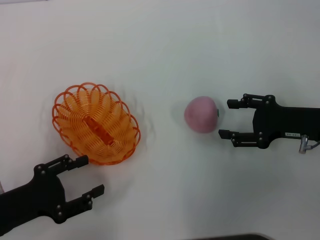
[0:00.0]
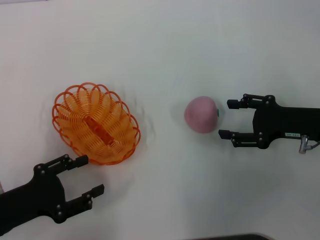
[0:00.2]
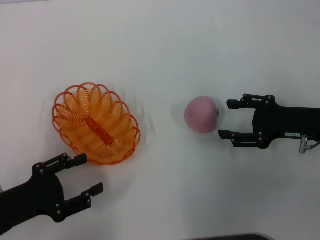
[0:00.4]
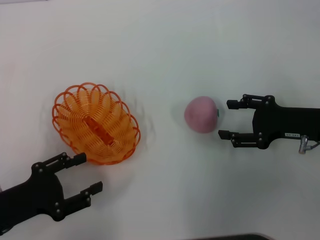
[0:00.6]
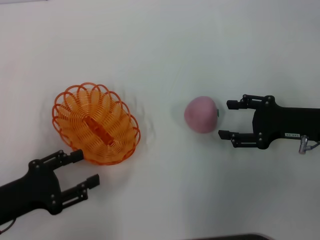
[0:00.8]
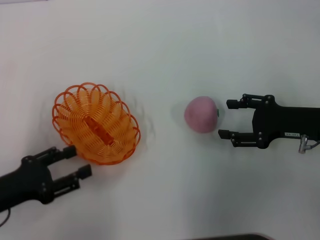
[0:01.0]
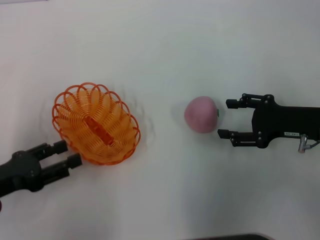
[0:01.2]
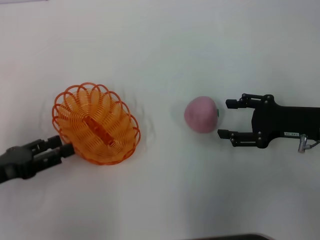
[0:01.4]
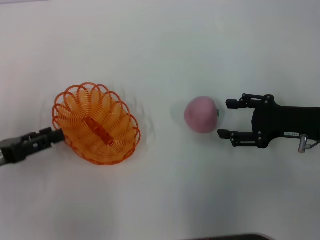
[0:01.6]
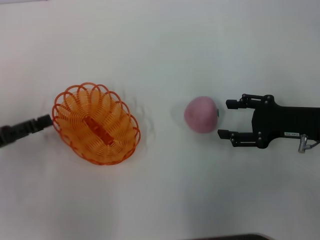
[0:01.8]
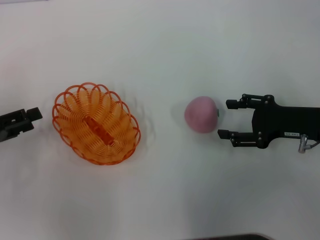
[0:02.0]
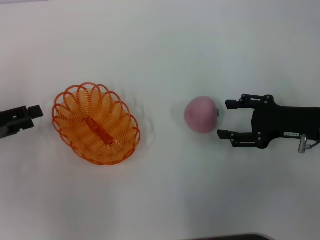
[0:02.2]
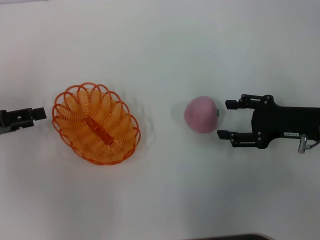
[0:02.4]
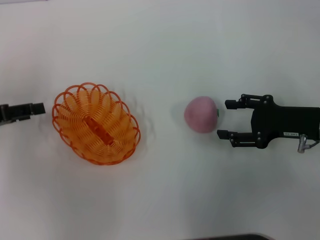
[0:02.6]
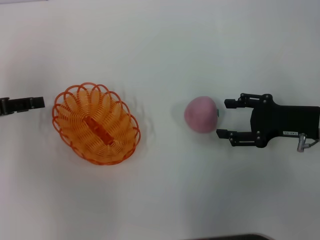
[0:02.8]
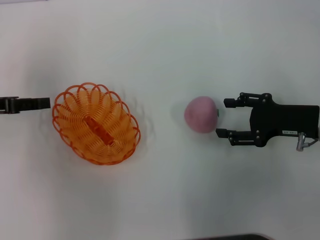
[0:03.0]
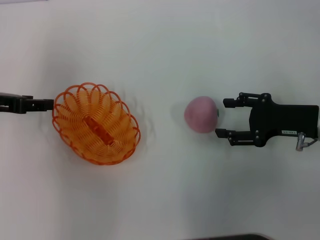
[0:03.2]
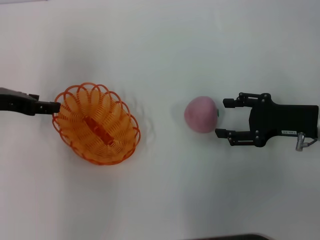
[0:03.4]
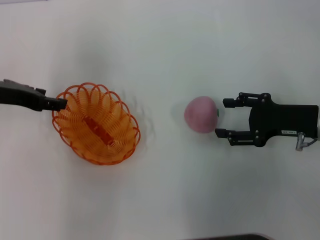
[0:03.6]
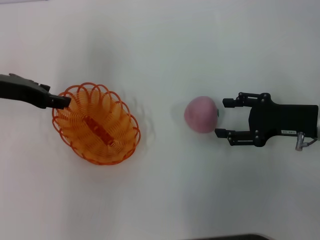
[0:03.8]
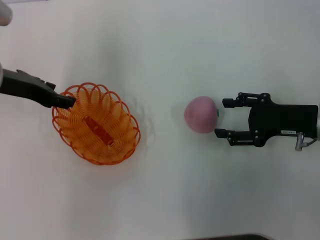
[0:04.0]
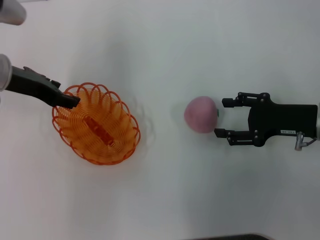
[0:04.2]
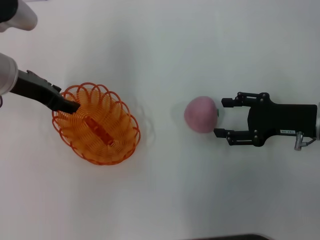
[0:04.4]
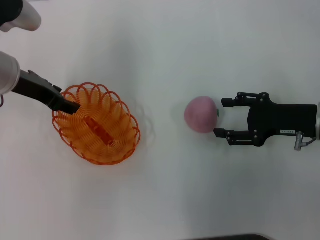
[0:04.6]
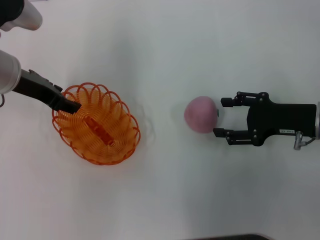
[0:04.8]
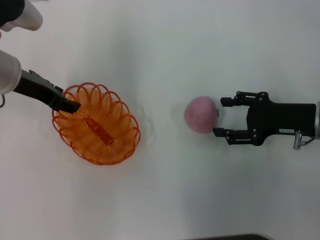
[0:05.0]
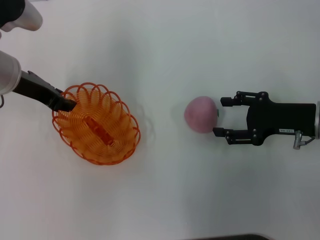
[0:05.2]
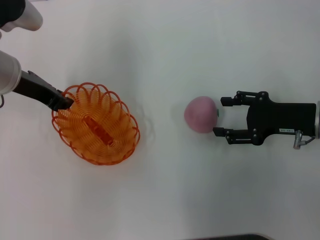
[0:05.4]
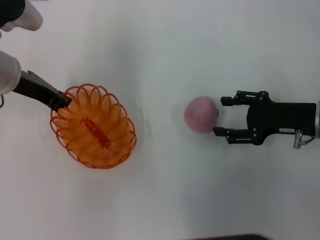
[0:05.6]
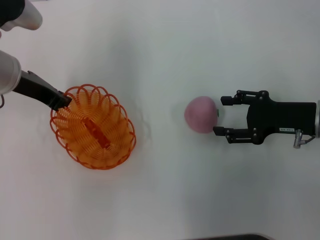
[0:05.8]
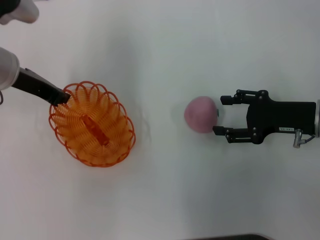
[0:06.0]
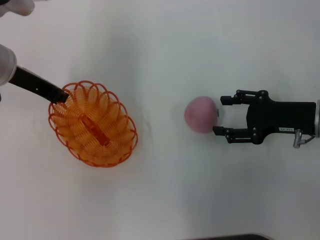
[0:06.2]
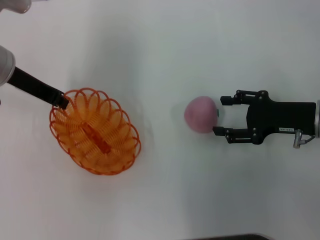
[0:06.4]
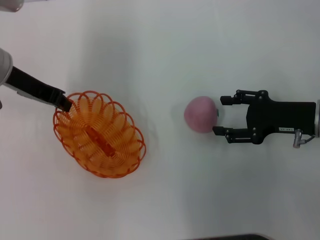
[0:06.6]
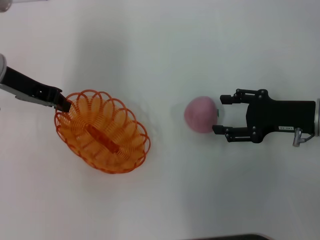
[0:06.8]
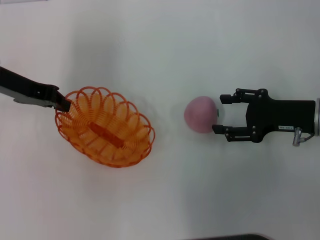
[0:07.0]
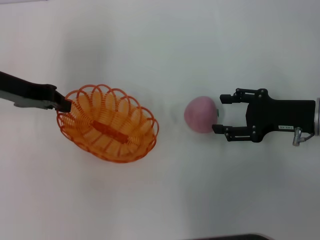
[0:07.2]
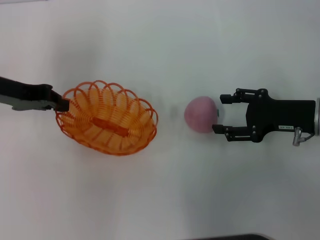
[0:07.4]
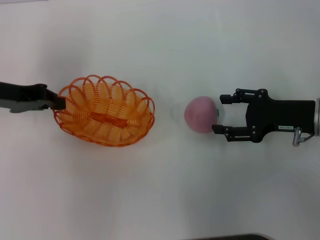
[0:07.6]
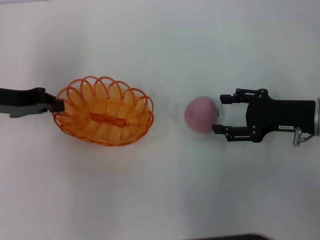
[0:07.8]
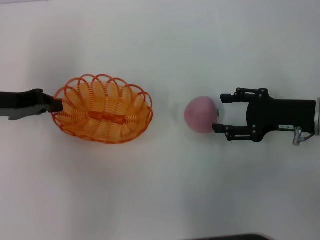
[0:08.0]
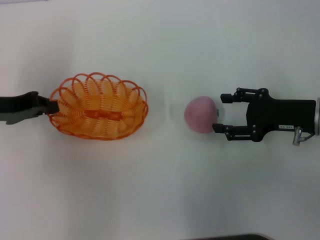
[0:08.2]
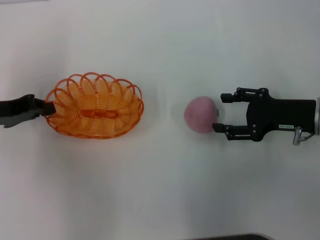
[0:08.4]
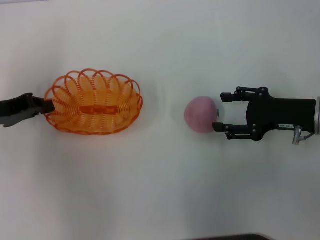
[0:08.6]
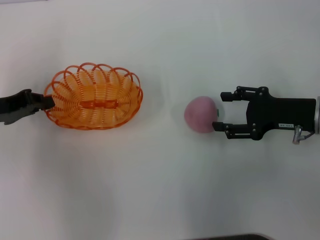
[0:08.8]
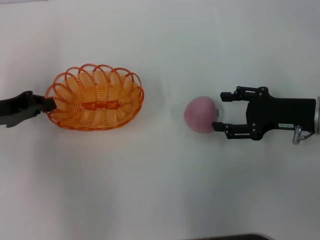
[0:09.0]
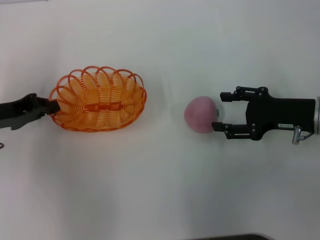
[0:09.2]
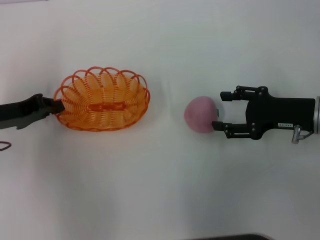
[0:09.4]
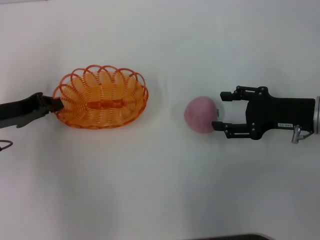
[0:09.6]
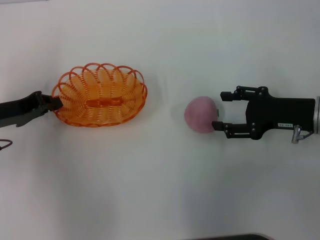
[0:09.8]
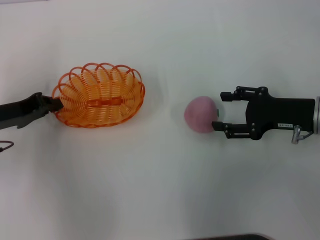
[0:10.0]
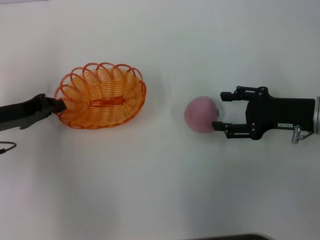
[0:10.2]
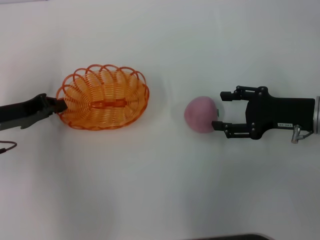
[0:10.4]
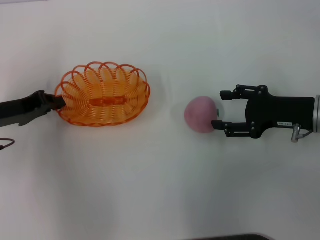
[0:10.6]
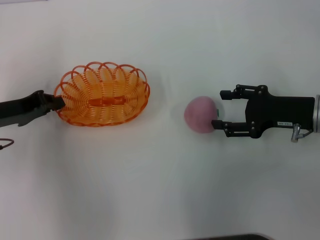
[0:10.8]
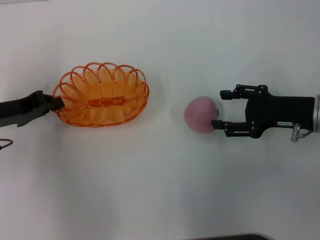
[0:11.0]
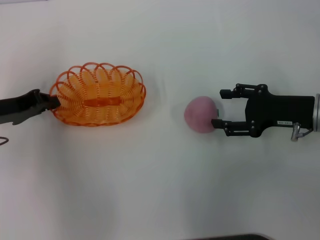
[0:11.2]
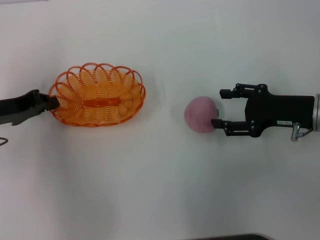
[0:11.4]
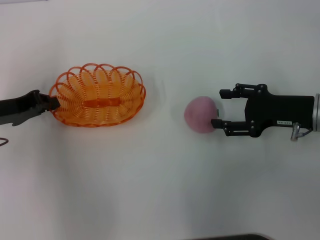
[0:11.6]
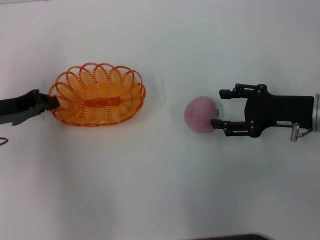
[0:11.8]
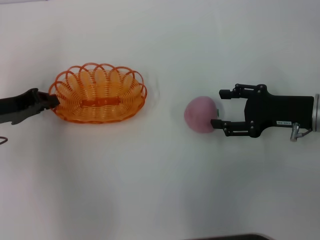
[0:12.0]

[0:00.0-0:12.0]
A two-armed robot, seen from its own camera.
Step, 0:00.0 to 0:06.4: Pick up the basket with the left gripper.
0:00.0 to 0:01.6: The left gripper moves roughly 10 cm.
0:01.6 to 0:03.0: The left gripper is displaced forward and upward by roughly 10 cm.
0:03.0 to 0:04.4: The left gripper moves to the right and forward, some 10 cm.
0:04.4 to 0:06.0: The left gripper closes up.
0:06.0 to 0:07.6: The left gripper heads to the left, covering approximately 5 cm.
0:07.6 to 0:09.0: The left gripper changes place by about 5 cm.
0:09.0 to 0:12.0: The grippers make only small movements.

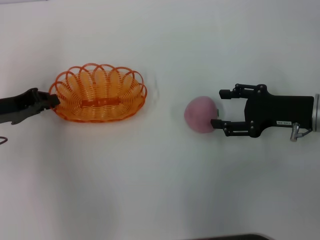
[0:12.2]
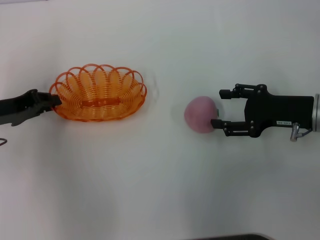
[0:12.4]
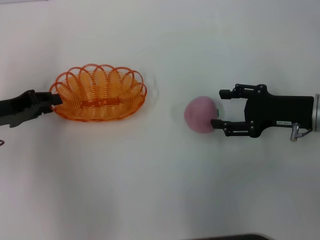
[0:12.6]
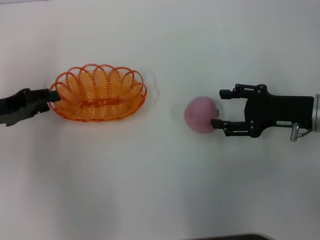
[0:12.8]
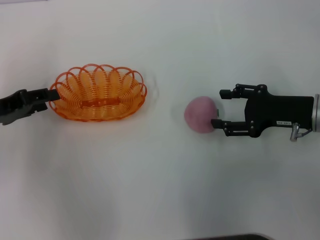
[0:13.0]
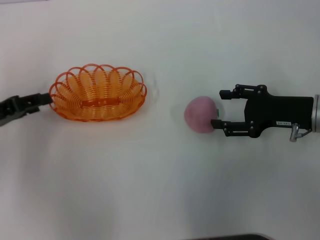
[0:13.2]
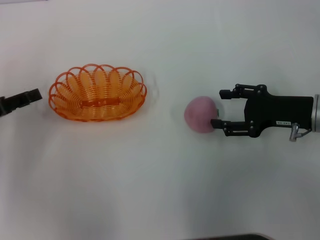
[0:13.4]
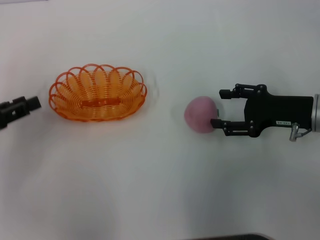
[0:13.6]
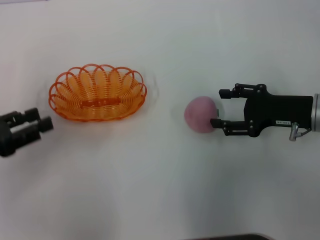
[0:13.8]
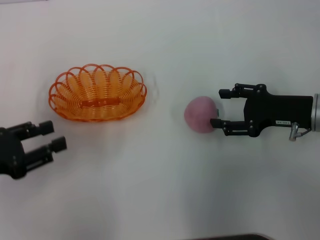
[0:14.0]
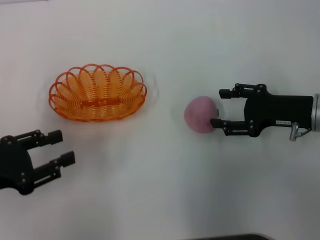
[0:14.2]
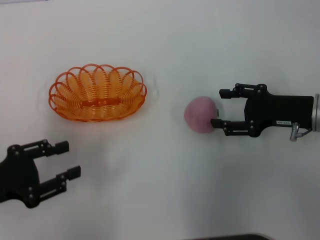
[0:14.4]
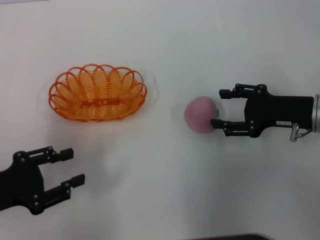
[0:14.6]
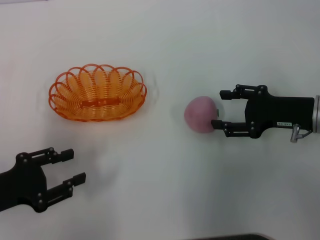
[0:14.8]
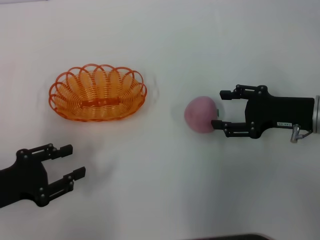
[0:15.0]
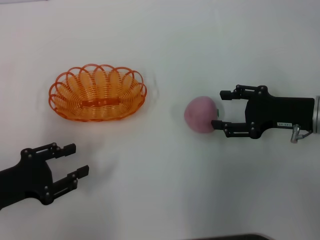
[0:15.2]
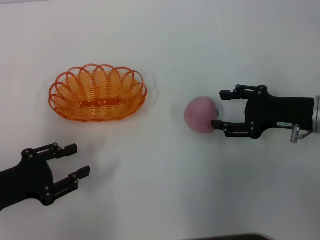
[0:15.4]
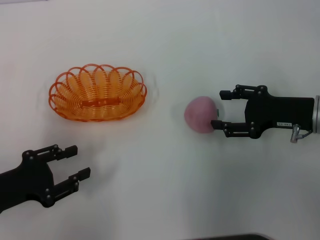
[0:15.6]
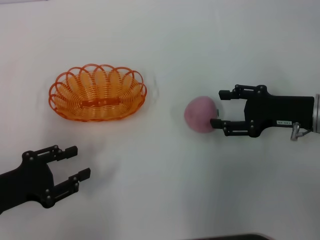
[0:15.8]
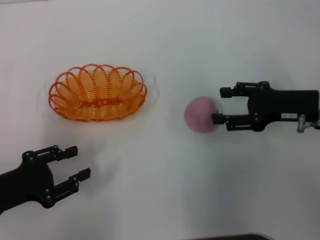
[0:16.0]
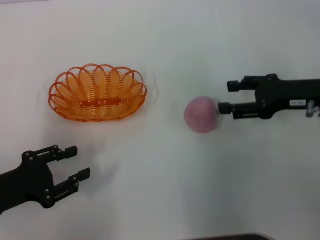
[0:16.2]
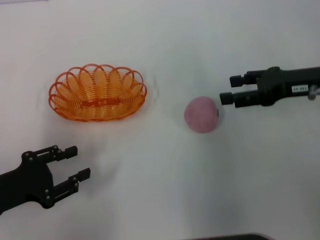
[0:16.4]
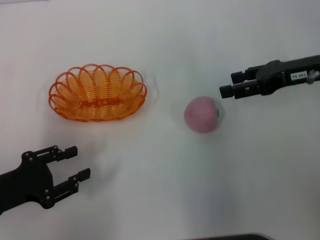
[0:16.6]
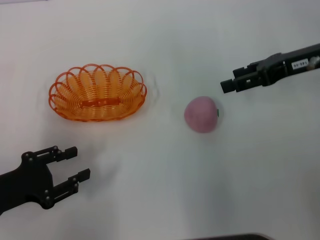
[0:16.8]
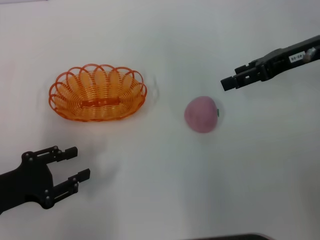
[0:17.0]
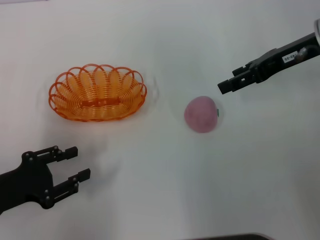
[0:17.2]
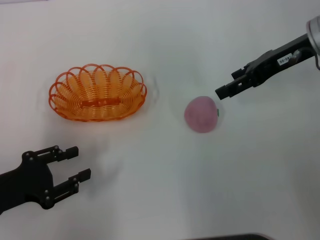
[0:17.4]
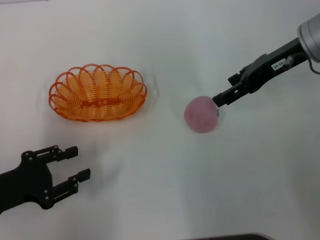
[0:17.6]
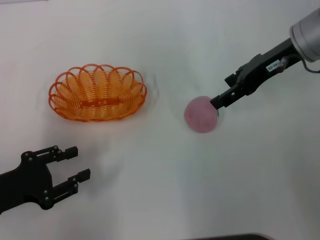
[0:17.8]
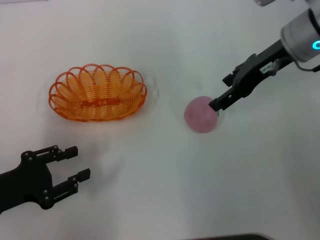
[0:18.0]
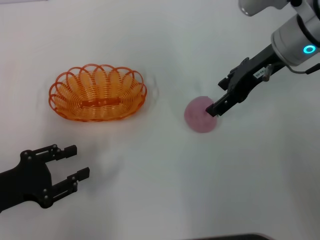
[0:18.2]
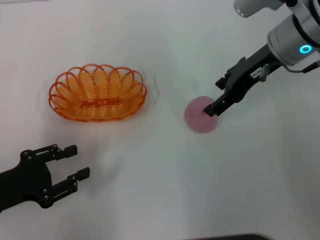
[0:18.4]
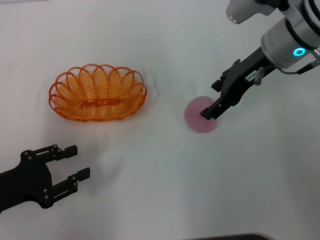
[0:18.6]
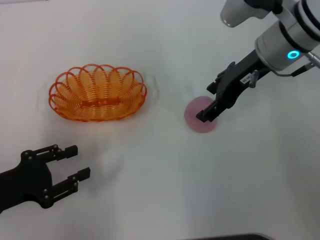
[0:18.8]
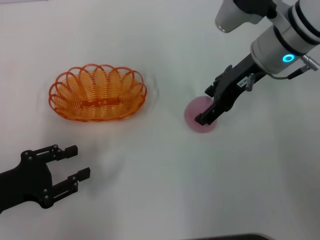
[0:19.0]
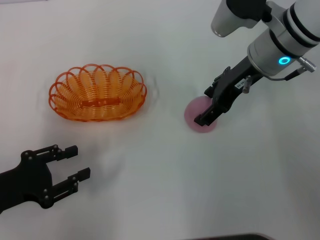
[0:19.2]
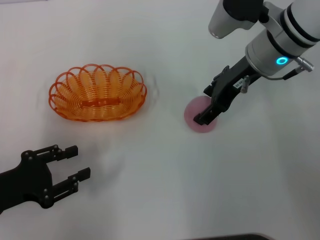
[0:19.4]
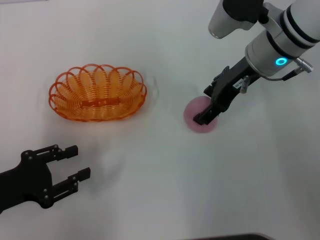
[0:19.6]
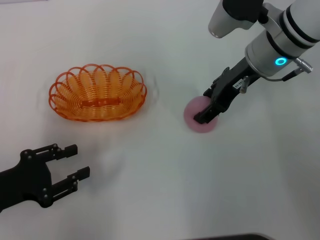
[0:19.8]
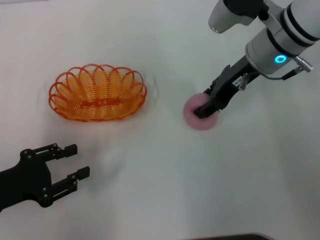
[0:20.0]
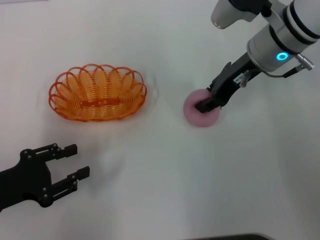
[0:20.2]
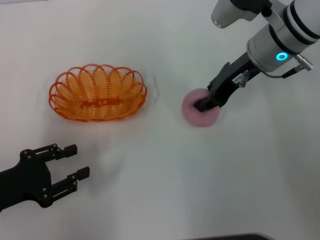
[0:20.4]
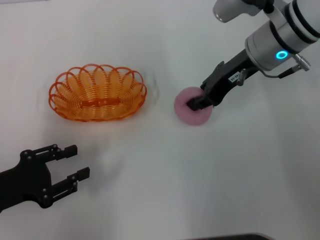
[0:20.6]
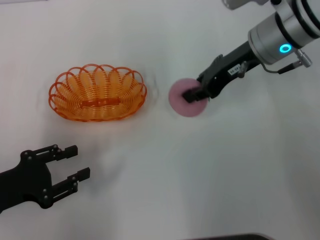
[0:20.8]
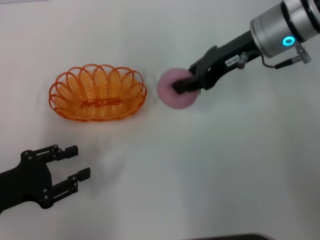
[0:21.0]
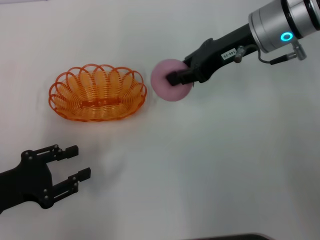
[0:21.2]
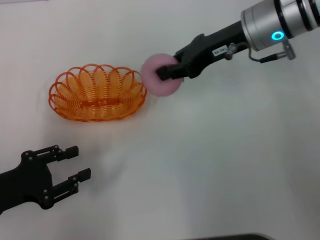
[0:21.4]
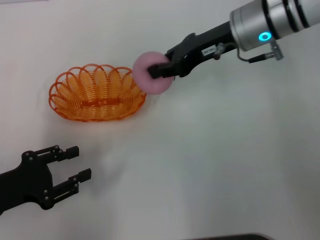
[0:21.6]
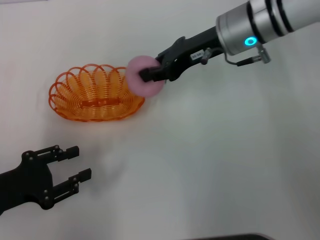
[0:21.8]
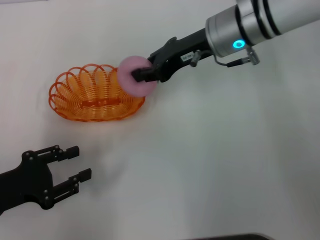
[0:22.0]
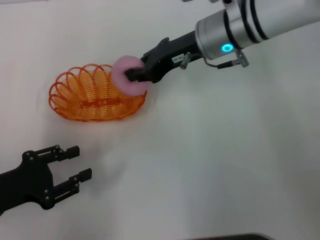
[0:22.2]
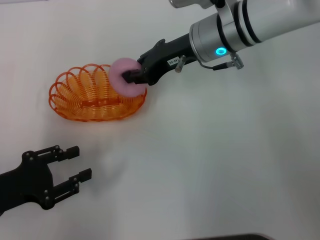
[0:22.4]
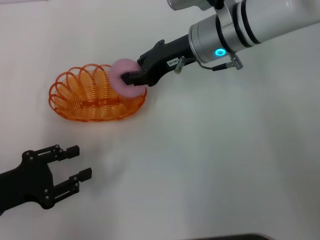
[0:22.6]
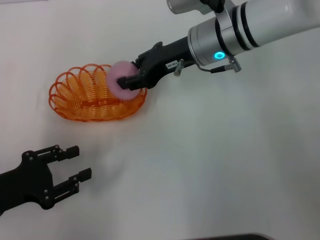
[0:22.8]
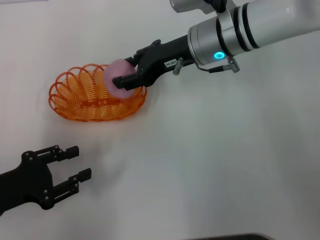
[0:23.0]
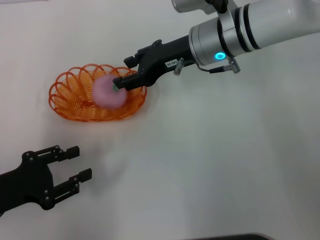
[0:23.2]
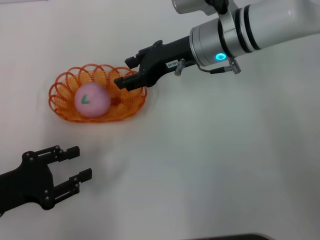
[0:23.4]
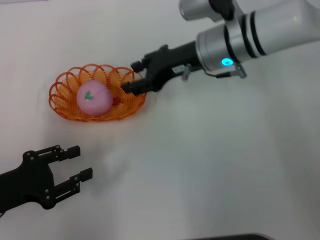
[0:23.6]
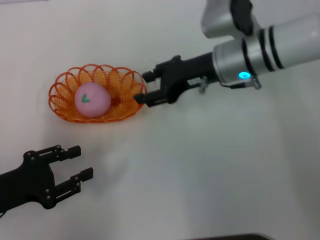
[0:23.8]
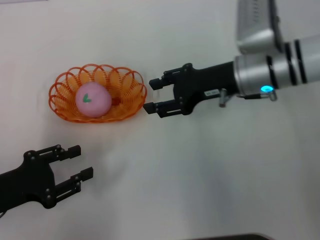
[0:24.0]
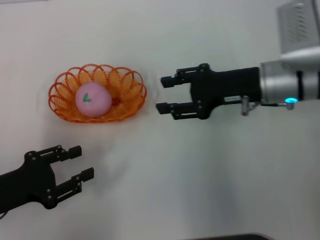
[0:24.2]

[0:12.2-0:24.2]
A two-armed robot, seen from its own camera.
Step, 0:13.6 to 0:20.8: Pick up the peach with the right gripper.
Step, 0:21.2 to 0:23.6: Place the peach into the basket with the right gripper.
0:12.2 to 0:13.8: The left gripper moves backward, roughly 10 cm, and opens its fingers.
0:13.8 to 0:15.2: The left gripper goes some 5 cm downward.
0:15.2 to 0:16.6: The right gripper goes roughly 10 cm upward and forward.
0:16.6 to 0:18.2: The right gripper goes approximately 10 cm to the left.
0:18.2 to 0:19.8: The grippers stay close to where they were, moving slightly.
0:19.8 to 0:21.2: The right gripper closes up.
0:21.2 to 0:22.6: The right gripper is displaced to the left by roughly 5 cm.
0:22.6 to 0:24.2: The right gripper heads to the right and backward, covering some 10 cm, and opens up.
